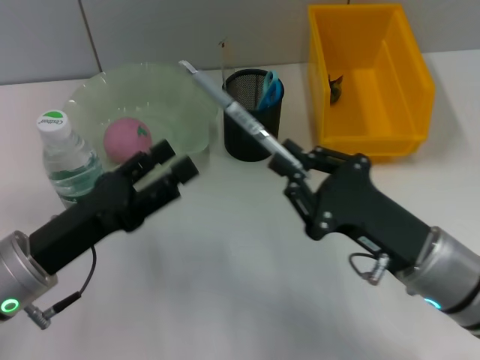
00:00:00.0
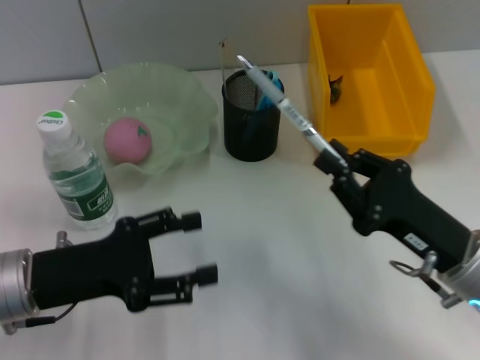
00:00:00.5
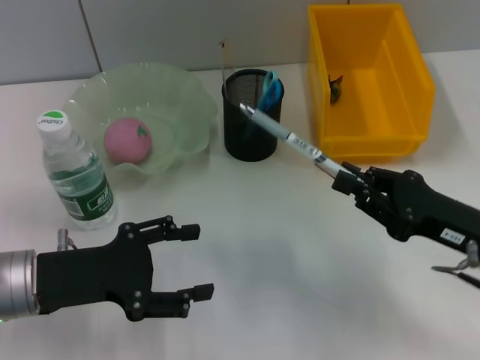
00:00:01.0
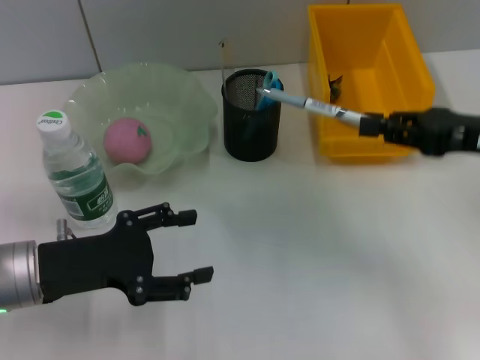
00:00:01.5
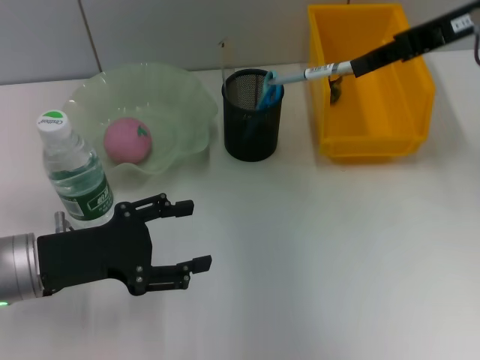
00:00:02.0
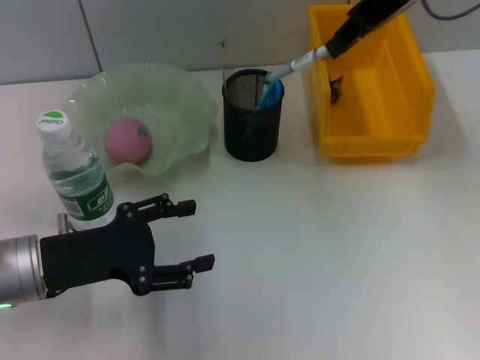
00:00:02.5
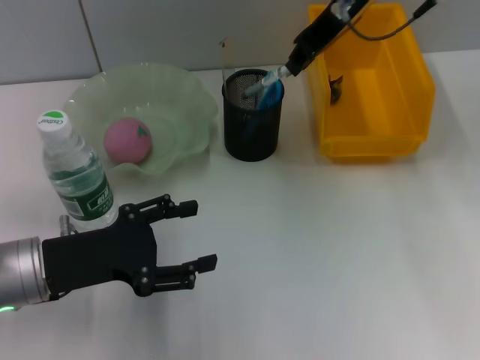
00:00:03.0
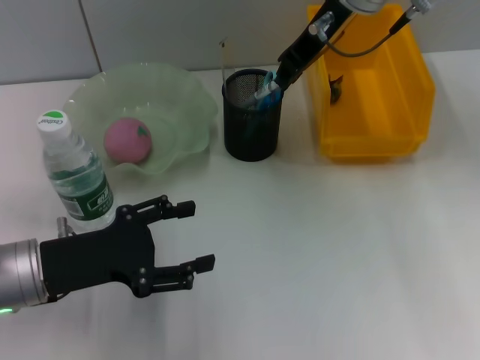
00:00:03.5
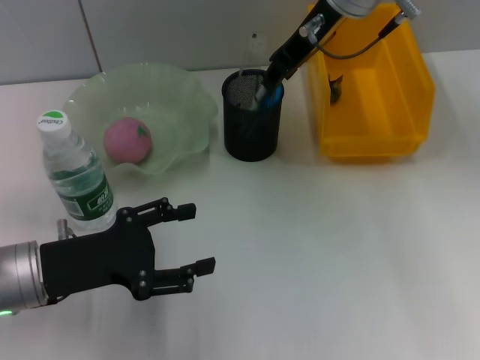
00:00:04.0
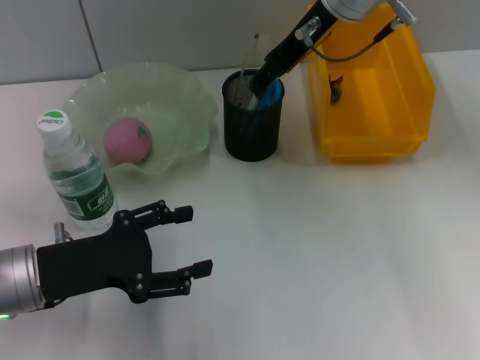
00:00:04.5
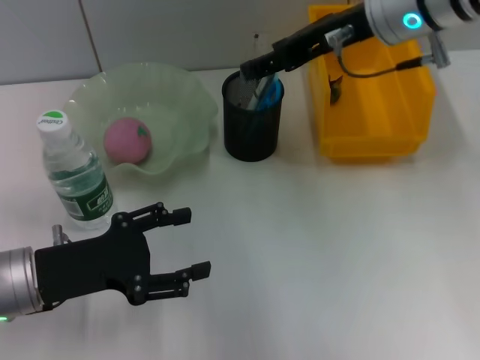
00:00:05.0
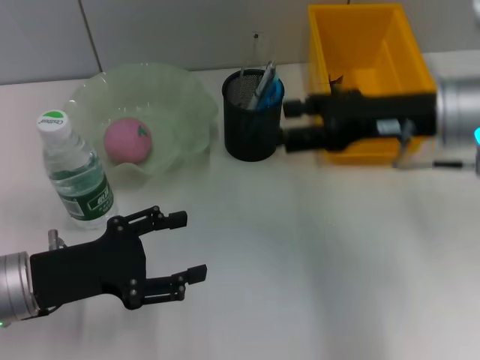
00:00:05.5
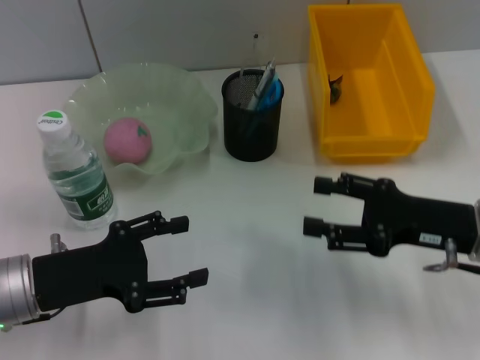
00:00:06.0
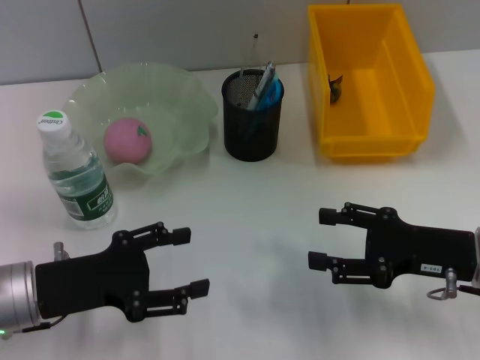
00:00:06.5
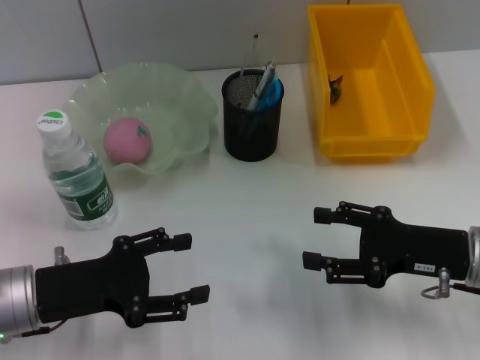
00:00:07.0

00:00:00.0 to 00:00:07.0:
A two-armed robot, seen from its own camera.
Step, 00:00:00.0 to 00:00:04.5: Place the gray spring-action pen into the pen holder with the right hand.
00:00:00.0 to 00:00:02.0: The right gripper goes some 25 cm upward and forward.
00:00:02.0 to 00:00:03.5: The right gripper is displaced to the left and forward by some 15 cm.
00:00:03.5 to 00:00:05.0: The right gripper travels backward by some 5 cm, and opens.
00:00:05.0 to 00:00:07.0: The right gripper travels downward, backward and to the right by approximately 25 cm.
